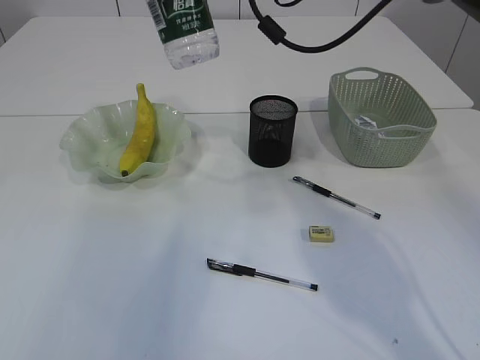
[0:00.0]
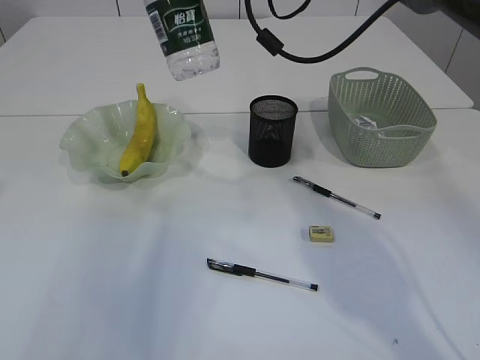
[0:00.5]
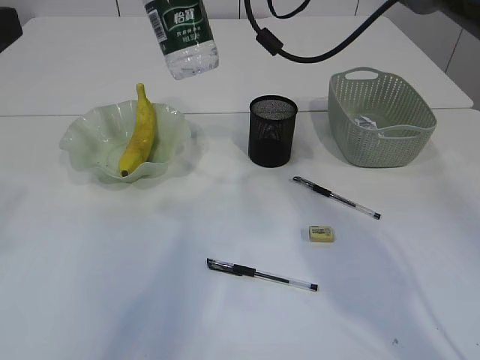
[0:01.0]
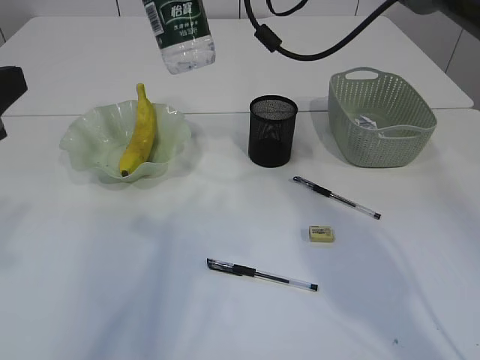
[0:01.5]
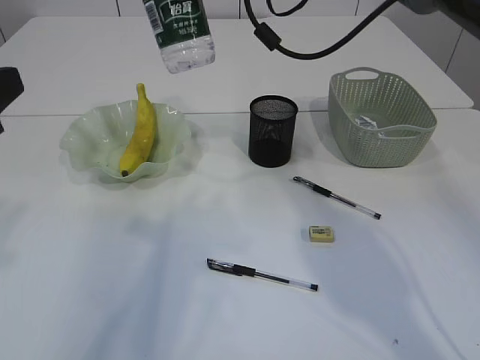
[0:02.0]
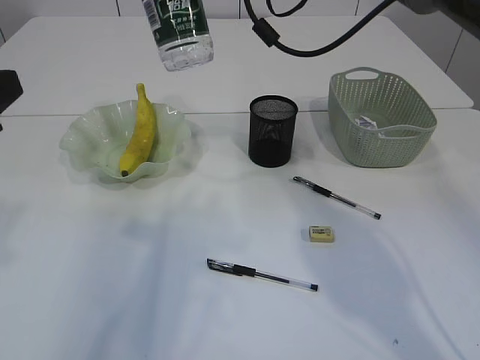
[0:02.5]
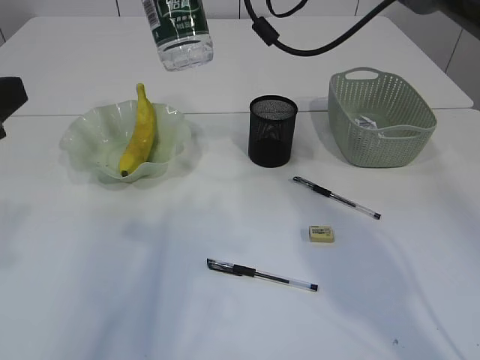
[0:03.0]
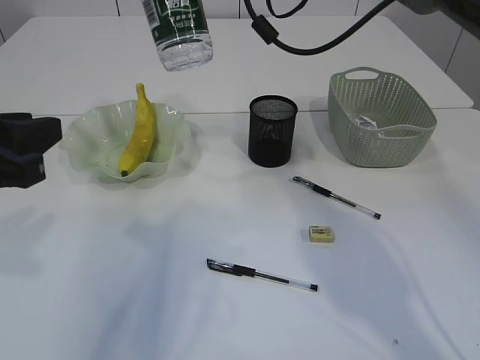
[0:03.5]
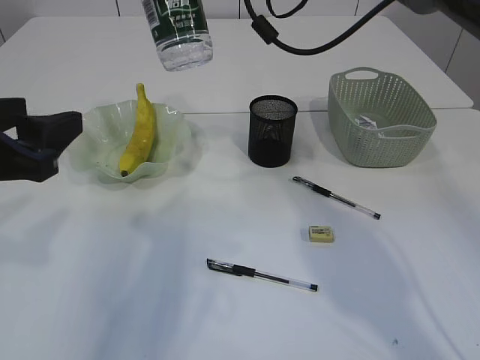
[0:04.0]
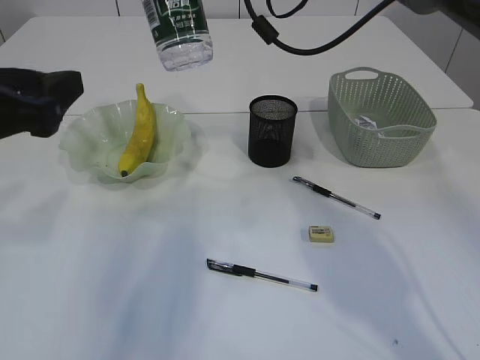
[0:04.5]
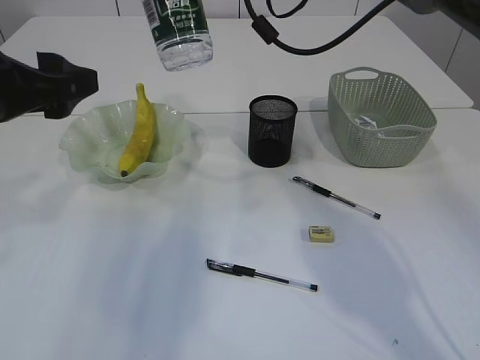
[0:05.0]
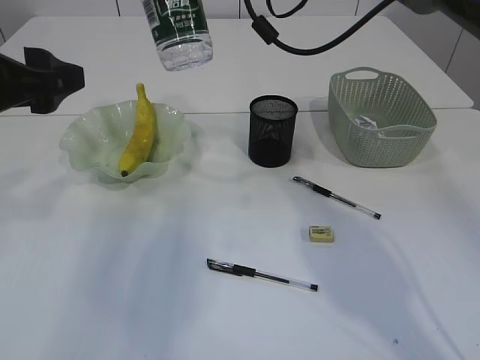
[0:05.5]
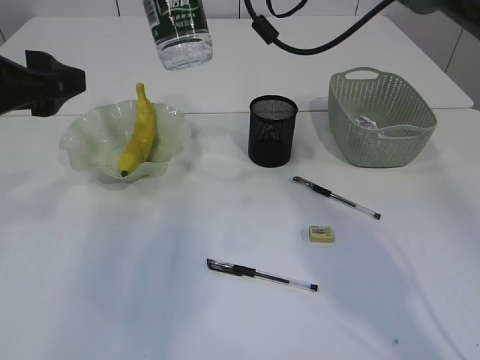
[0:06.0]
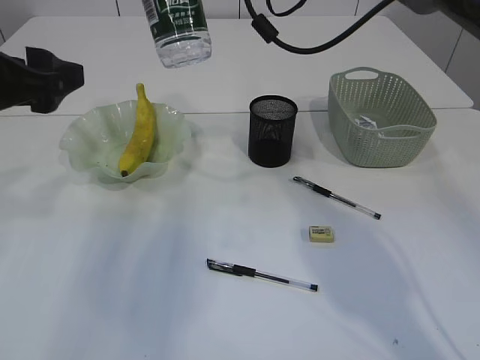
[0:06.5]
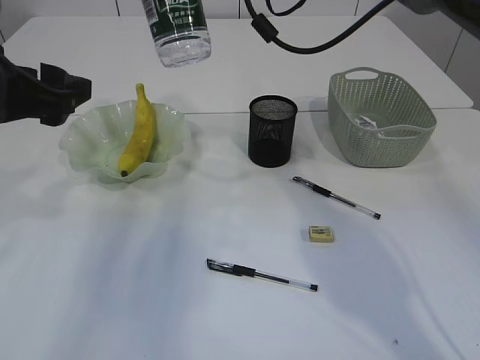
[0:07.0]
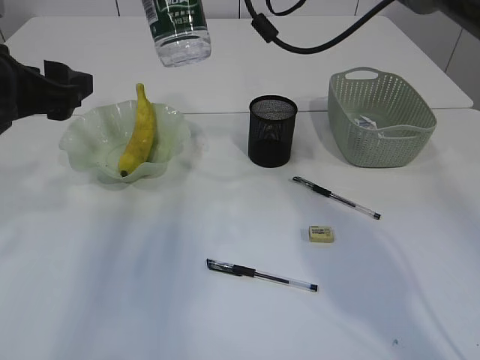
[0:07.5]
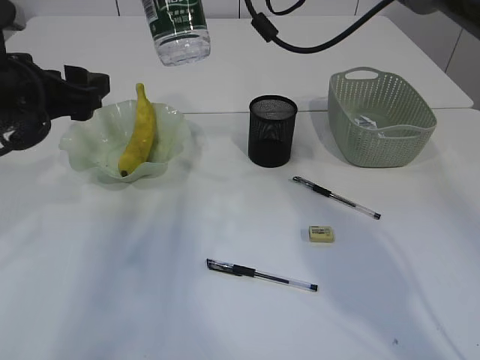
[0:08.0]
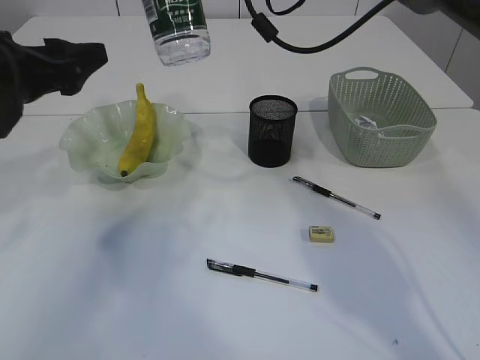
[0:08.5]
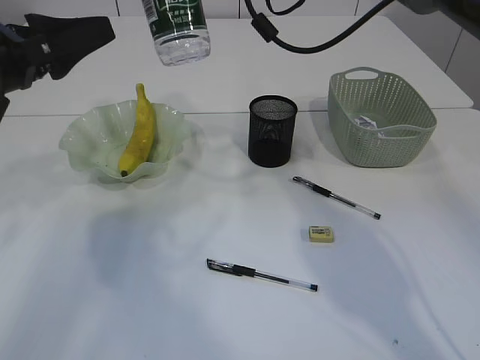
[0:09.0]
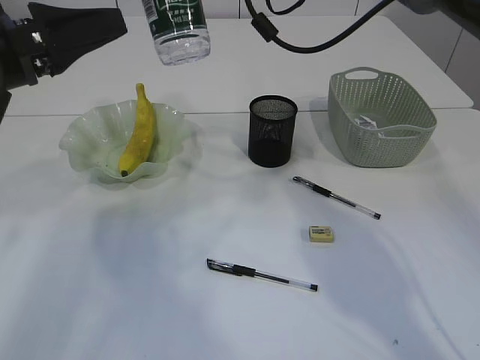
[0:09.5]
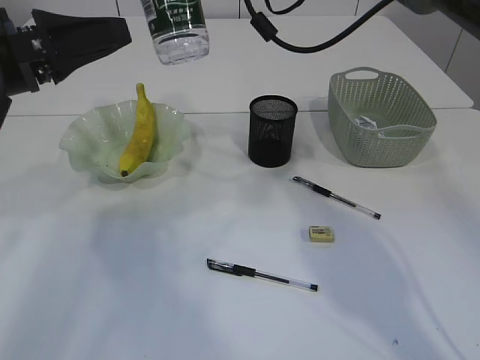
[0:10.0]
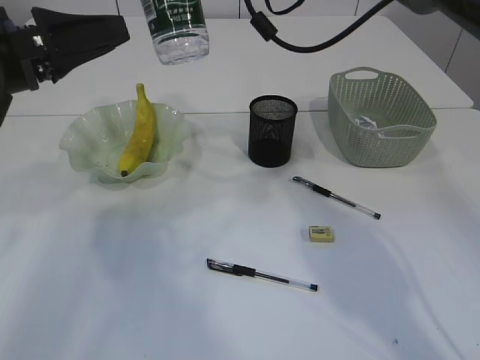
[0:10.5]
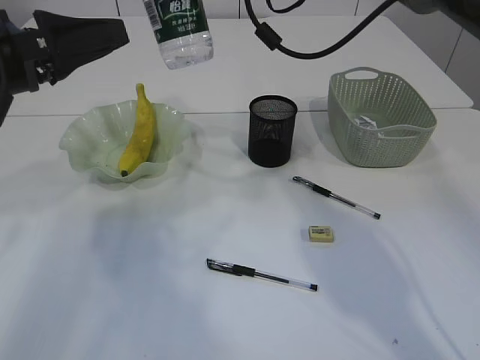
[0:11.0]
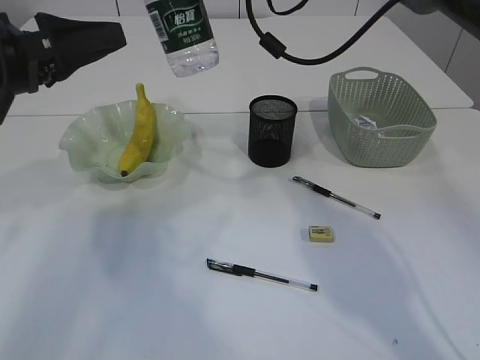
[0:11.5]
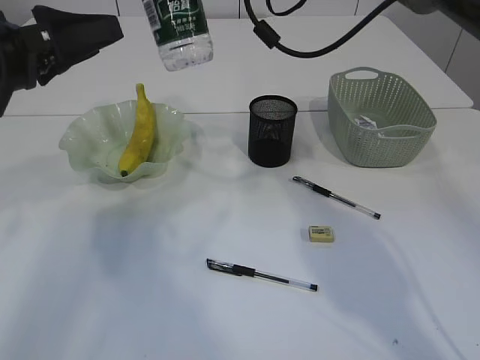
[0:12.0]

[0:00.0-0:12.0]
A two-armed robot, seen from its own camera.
0:00.0 to 0:02.0: The left gripper travels downward by some 10 cm.
0:02.0 to 0:04.0: The left gripper opens.
0:04.0 to 0:06.0: The left gripper is displaced forward by about 5 cm.
0:06.0 to 0:08.0: The left gripper changes place by roughly 5 cm.
0:10.0 to 0:12.0: The grippers move only a little.

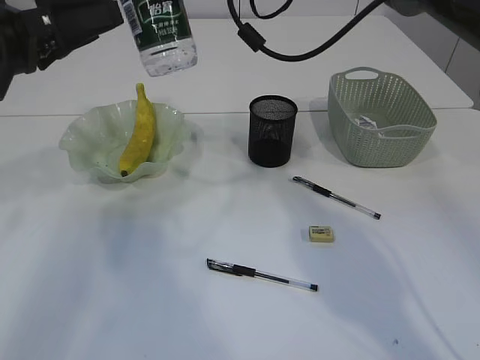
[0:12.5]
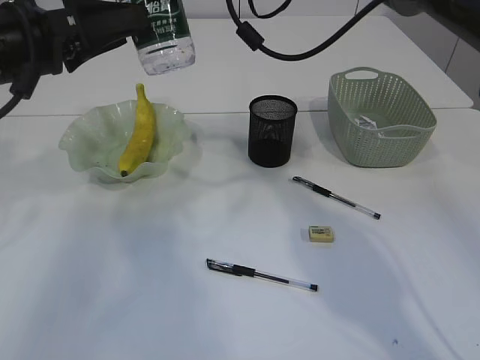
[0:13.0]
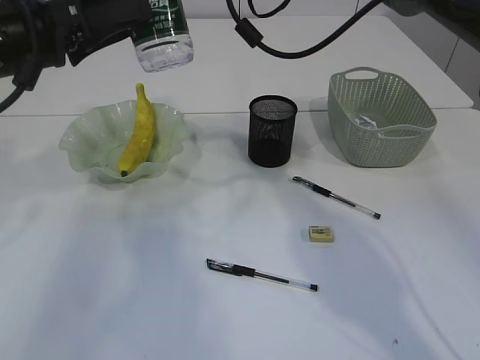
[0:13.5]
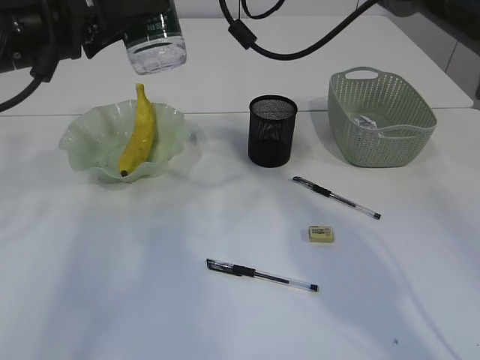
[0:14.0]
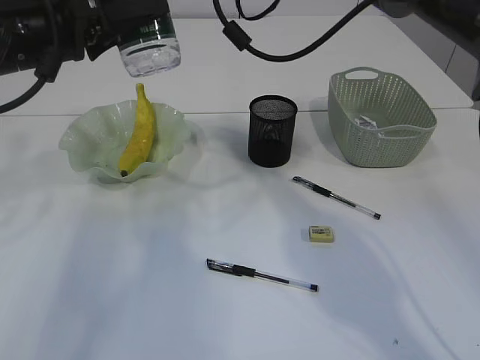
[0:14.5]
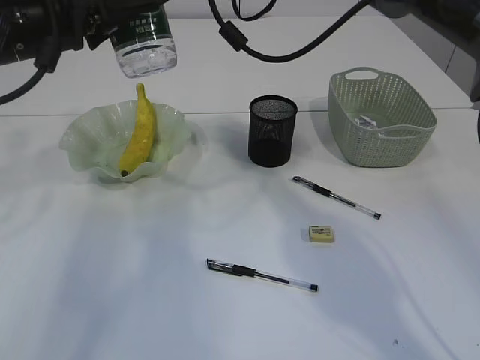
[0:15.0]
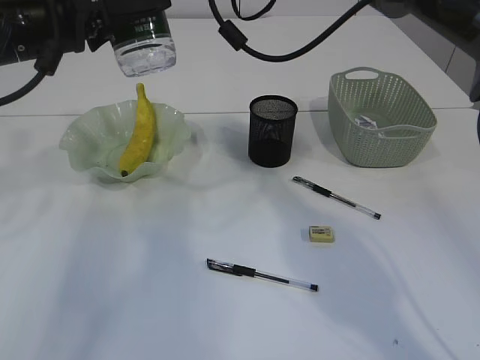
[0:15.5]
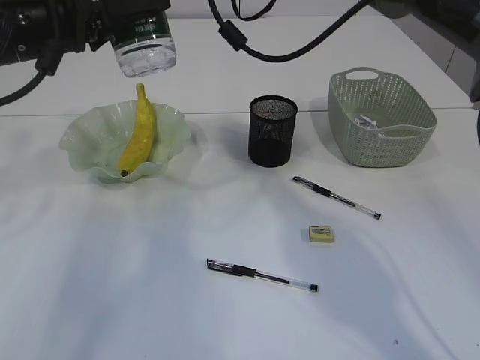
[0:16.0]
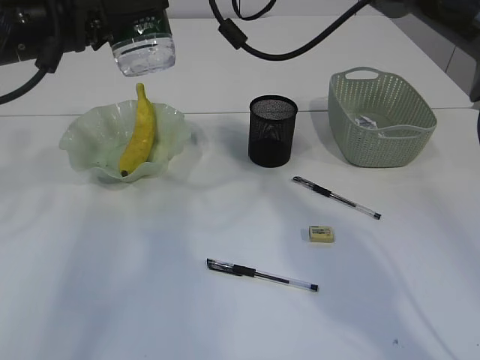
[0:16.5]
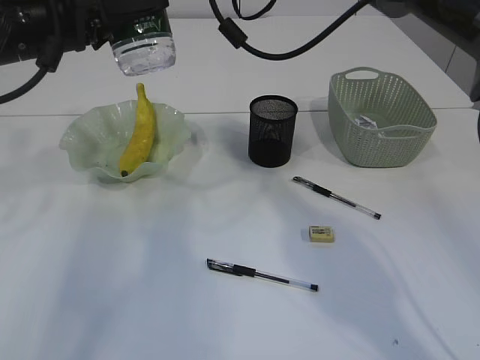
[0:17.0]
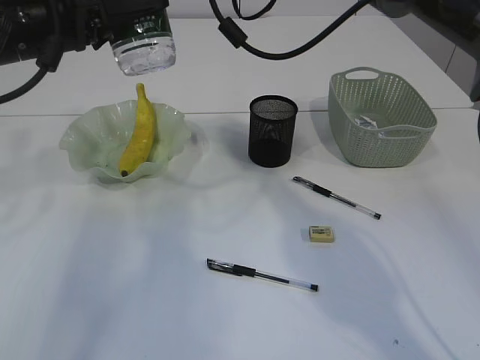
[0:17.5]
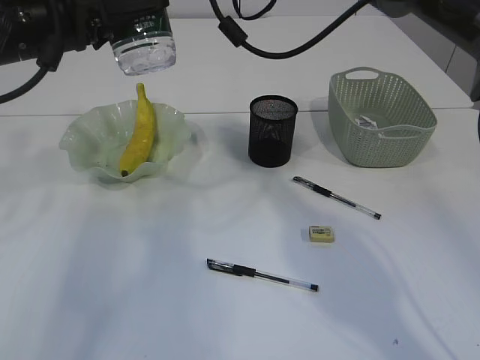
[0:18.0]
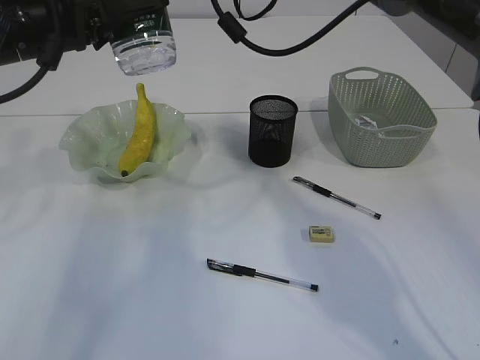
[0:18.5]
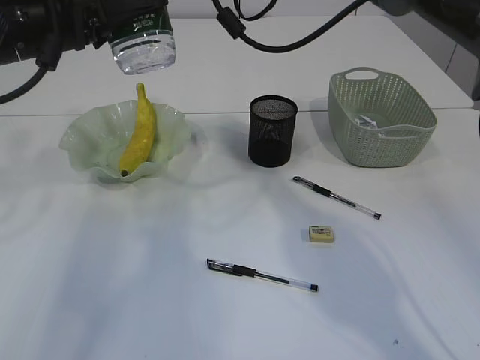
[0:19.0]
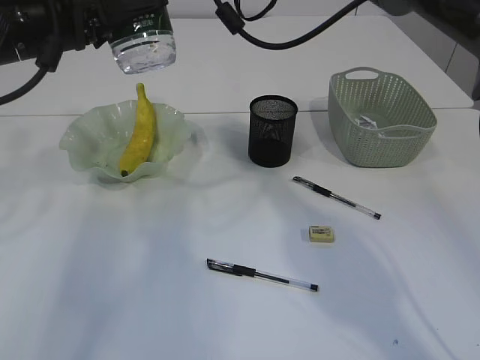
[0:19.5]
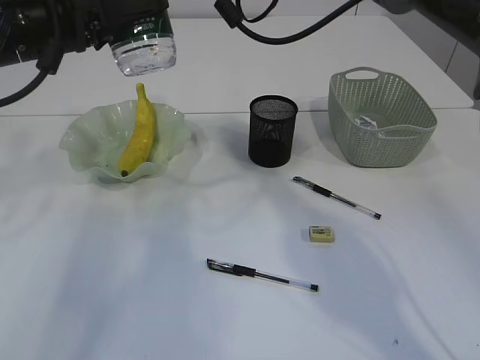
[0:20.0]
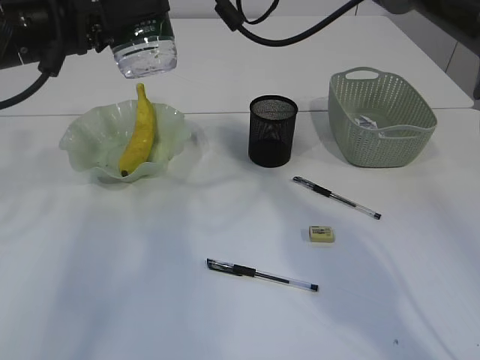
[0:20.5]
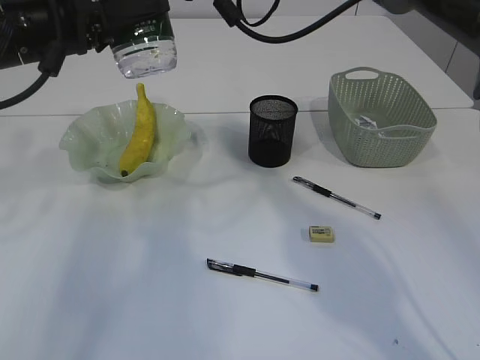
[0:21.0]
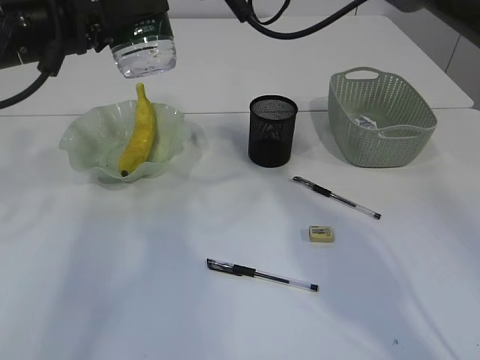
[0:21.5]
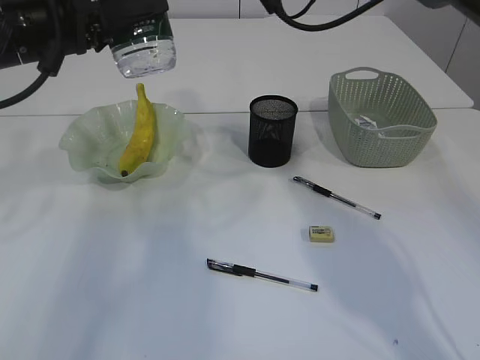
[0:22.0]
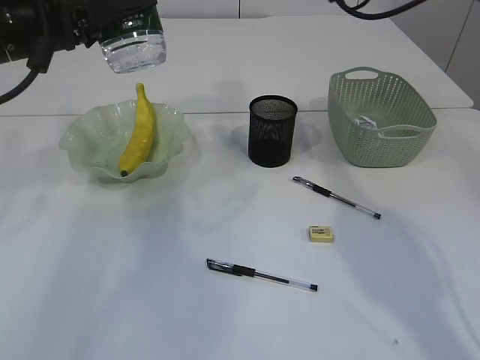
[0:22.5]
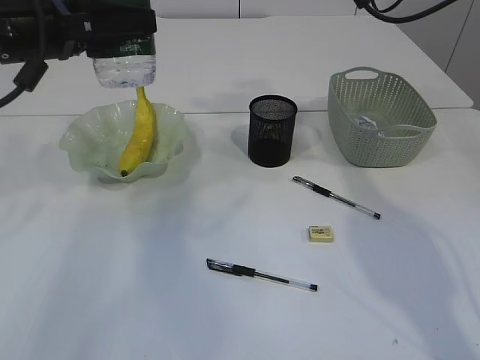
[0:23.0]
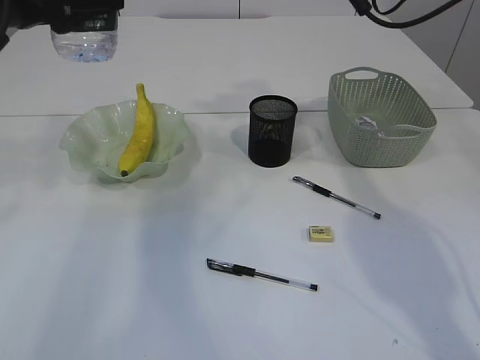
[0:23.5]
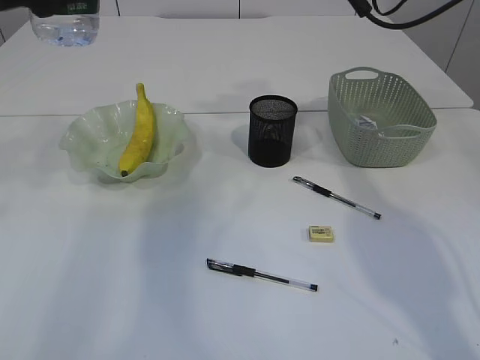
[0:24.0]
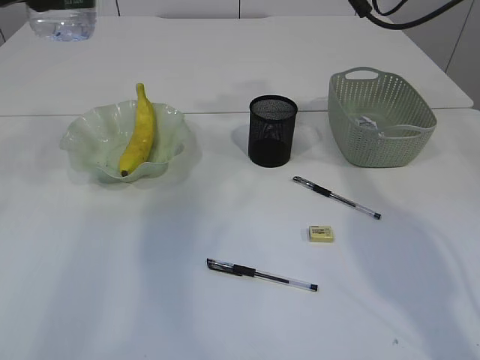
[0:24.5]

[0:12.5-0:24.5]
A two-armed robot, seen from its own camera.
Step, 0:12.5 to 0:23.0: transfer the bottle to the left arm.
0:12.5 to 0:14.5: The grippers stay close to where they were, moving slightly.
0:14.5 to 0:16.5: The left gripper closes.
0:16.5 to 0:20.5: There are only small adjustments of the grippers.
0:20.5 to 0:22.5: The right gripper travels to the right by about 15 cm.
0:22.5 to 0:24.5: The left gripper shifts approximately 5 cm upward.

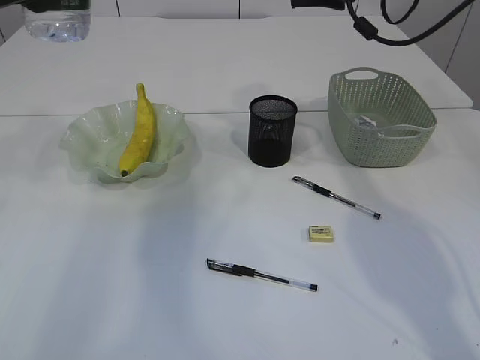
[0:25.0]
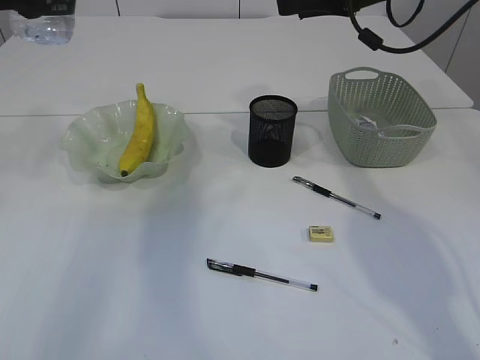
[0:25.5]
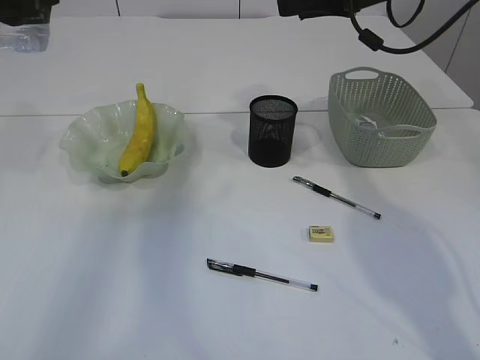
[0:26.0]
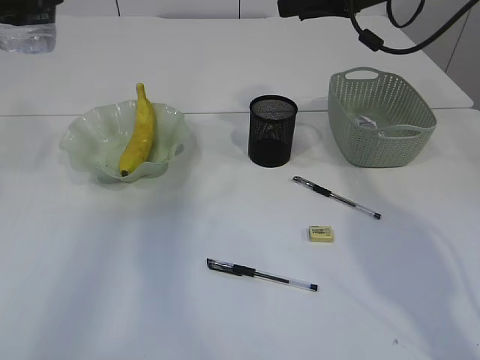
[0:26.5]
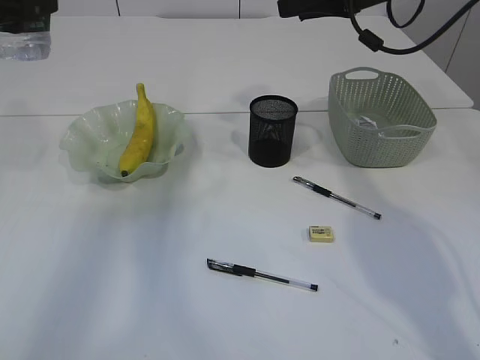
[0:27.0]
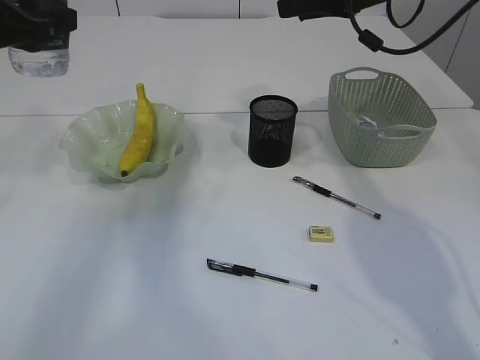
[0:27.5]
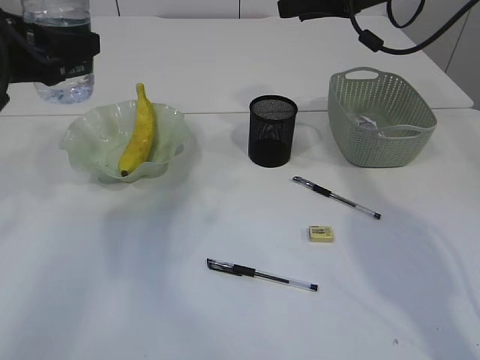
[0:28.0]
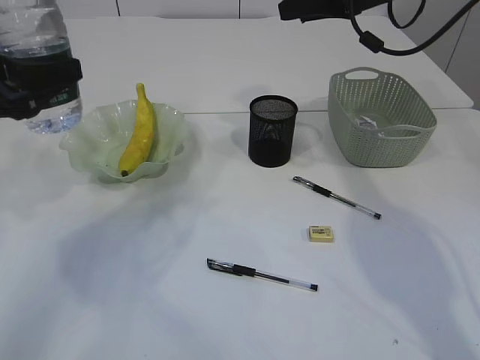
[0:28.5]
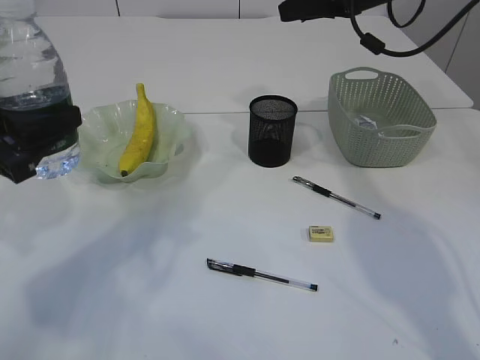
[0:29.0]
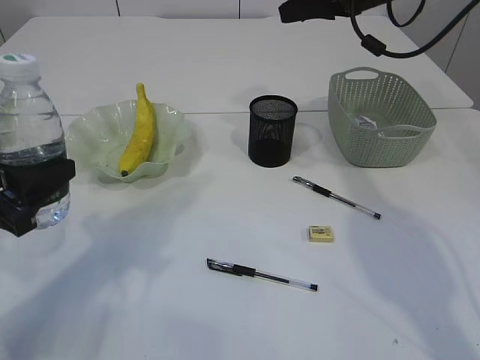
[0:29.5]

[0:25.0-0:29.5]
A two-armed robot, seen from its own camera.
0:25.0 to 0:27.0: There are only small adjustments of the grippers.
0:27.0 to 0:29.5: The left gripper goes some 20 cm downward and backward.
